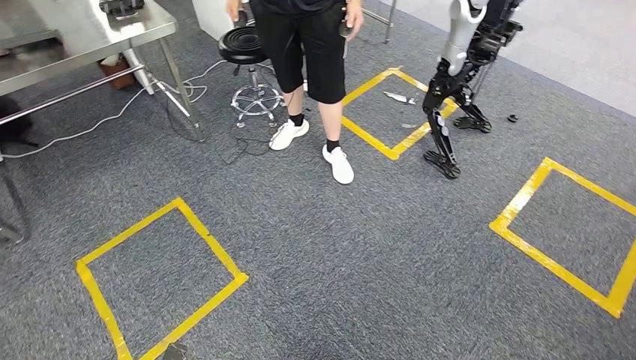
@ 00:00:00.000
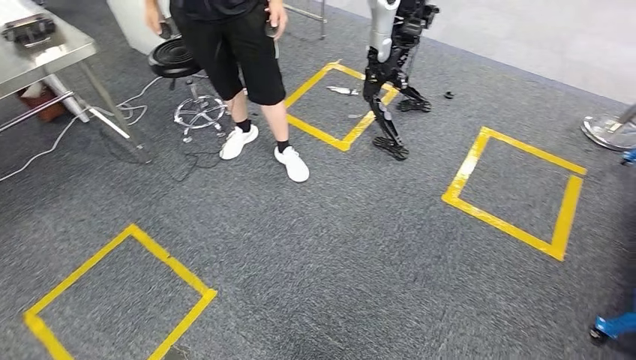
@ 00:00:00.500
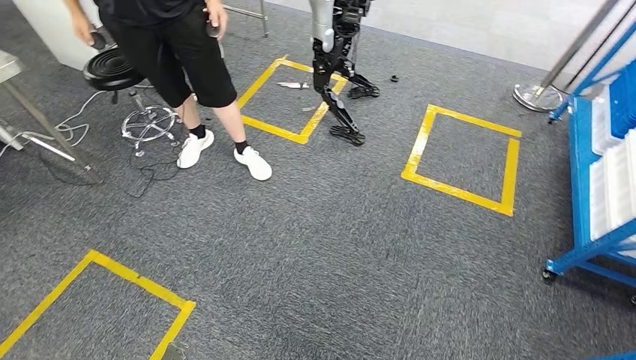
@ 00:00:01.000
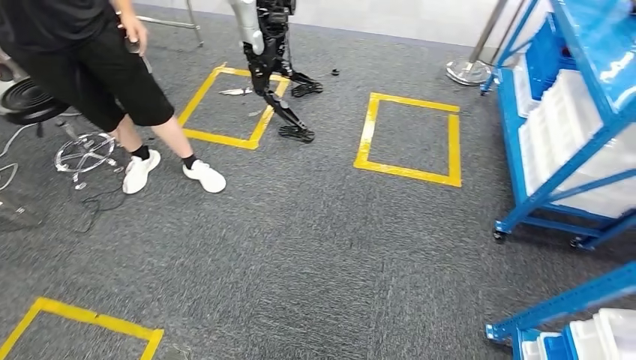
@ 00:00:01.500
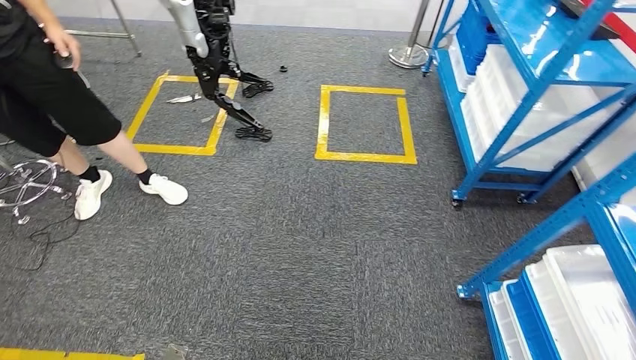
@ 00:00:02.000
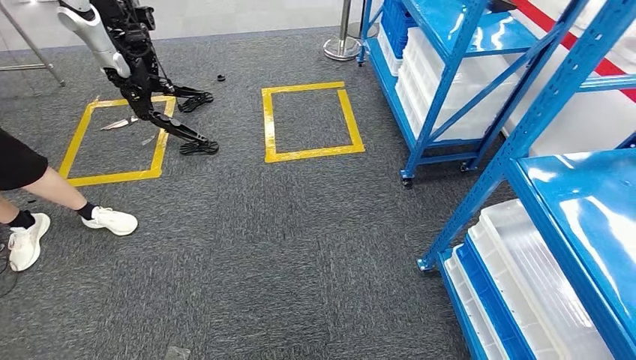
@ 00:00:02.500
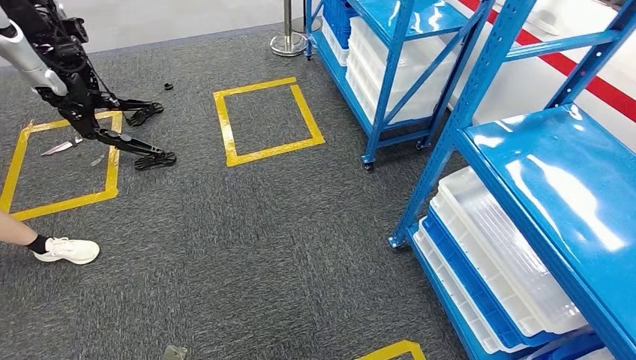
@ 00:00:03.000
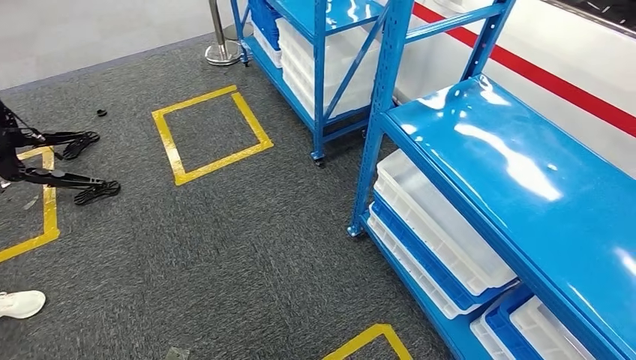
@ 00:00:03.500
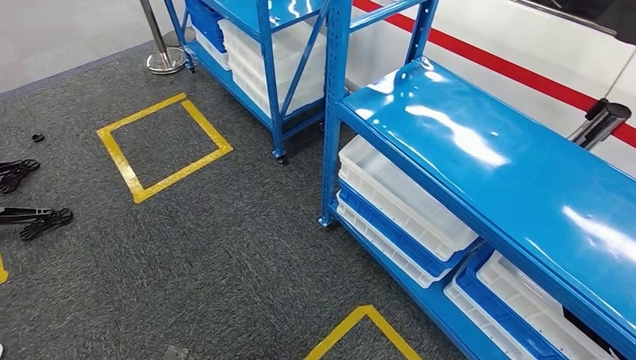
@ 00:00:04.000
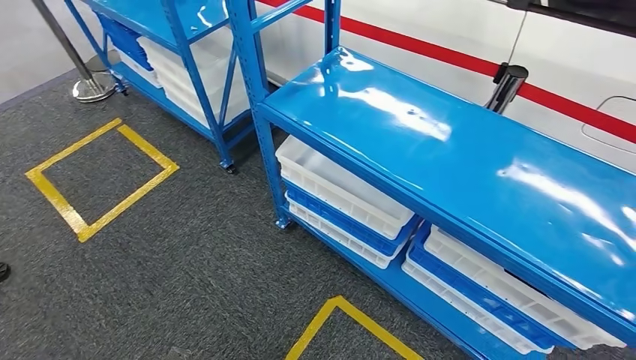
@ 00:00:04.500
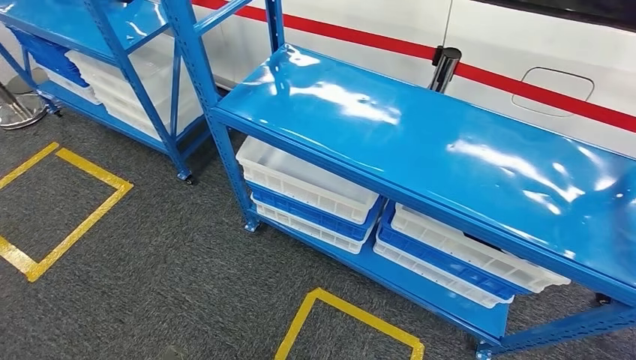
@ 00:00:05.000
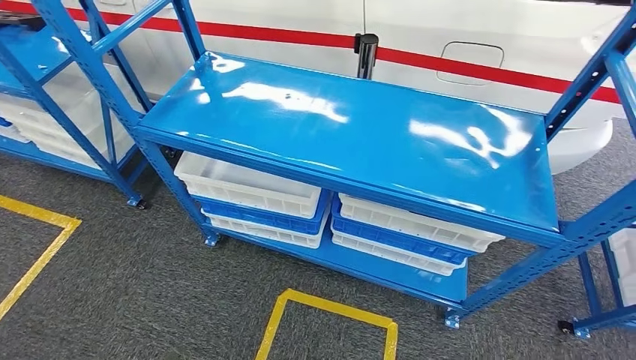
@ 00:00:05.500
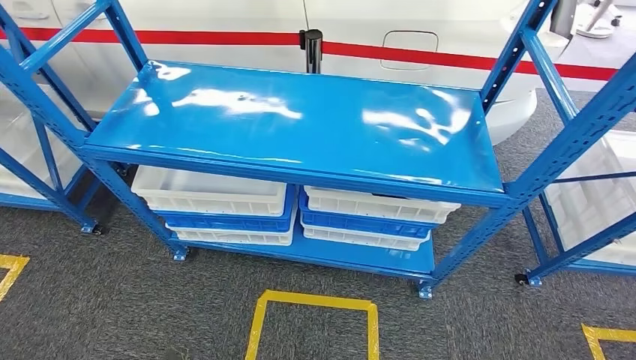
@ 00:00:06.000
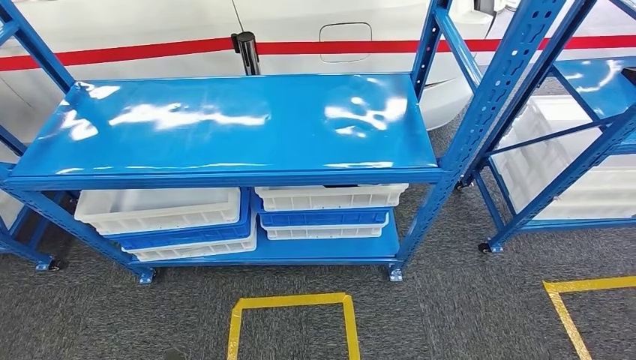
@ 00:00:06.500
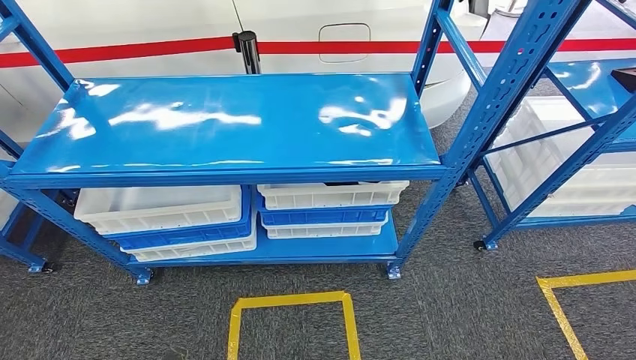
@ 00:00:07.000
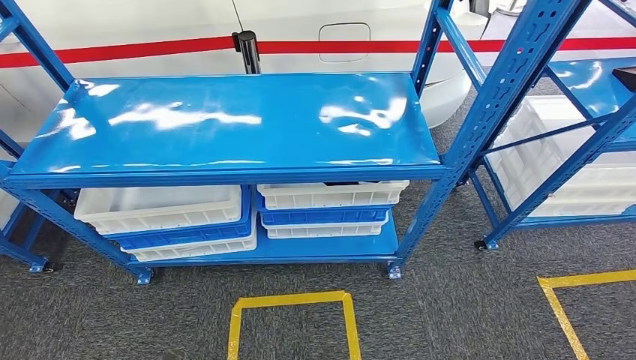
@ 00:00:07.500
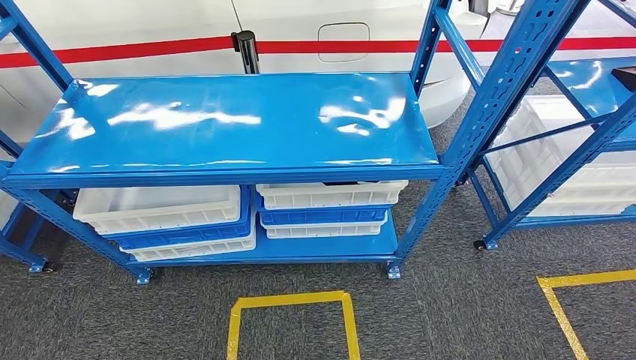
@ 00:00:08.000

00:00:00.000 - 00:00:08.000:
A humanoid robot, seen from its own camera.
Step, 00:00:00.000 - 00:00:08.000: Move to the initial position of the shelf.
